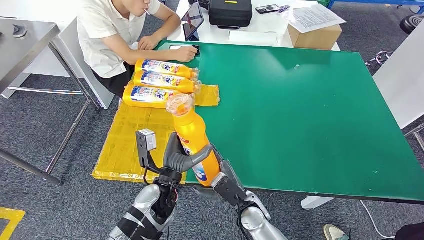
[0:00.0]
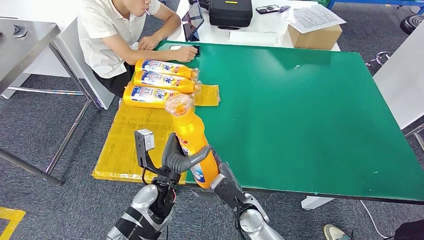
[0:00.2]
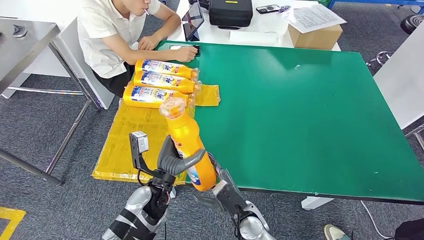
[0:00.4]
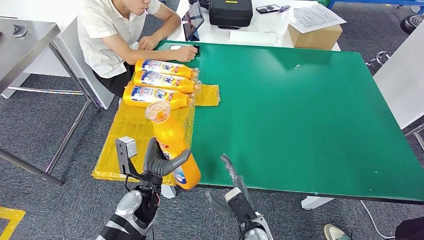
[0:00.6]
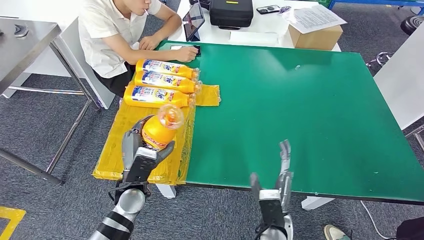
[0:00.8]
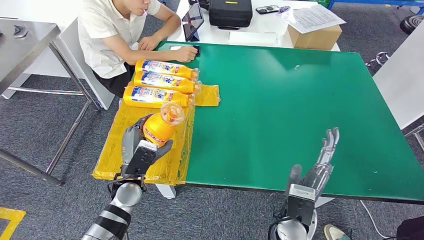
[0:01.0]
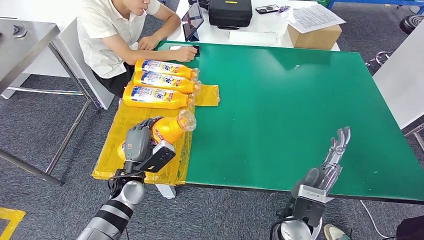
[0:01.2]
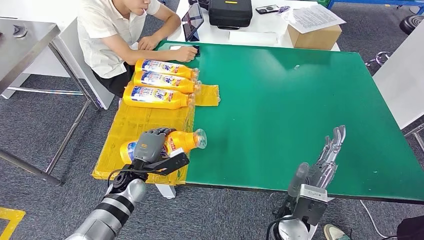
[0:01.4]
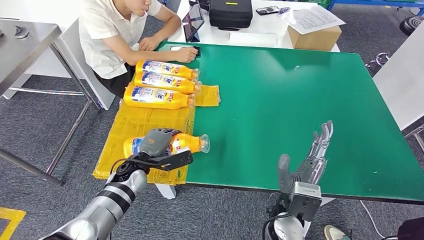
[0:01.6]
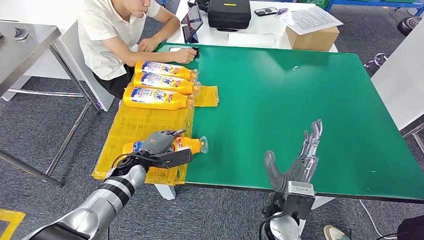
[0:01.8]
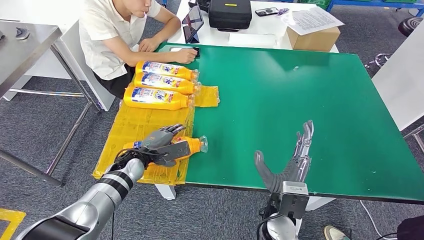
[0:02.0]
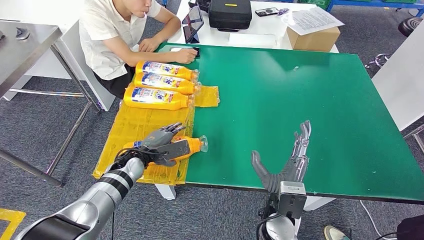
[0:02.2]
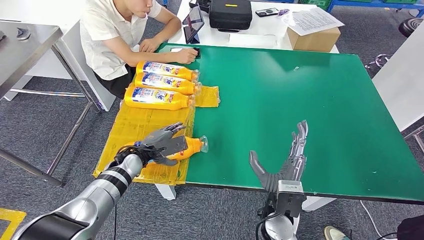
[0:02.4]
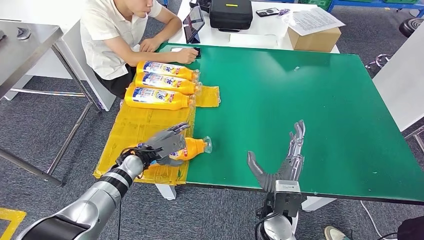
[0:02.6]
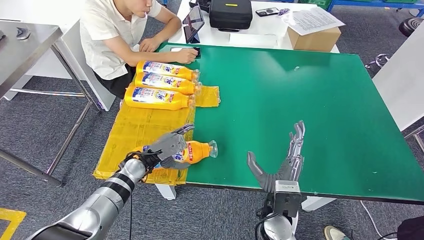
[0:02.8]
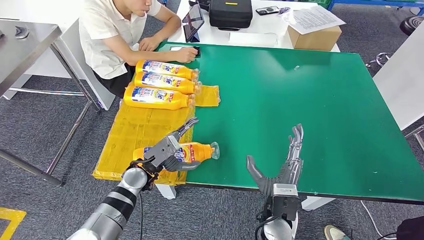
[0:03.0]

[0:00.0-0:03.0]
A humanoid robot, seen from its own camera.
Step, 0:00.0 to 0:03.0: Flip the fast-moving consumer goods bottle to the front side.
0:00.0 to 0:01.6: The right hand heads upward and to the right, covering approximately 10 cm; the left hand shifts roughly 15 cm to the left and forward.
